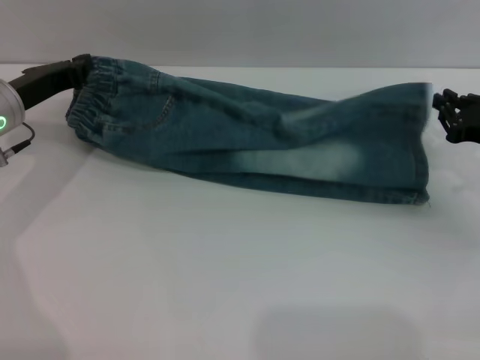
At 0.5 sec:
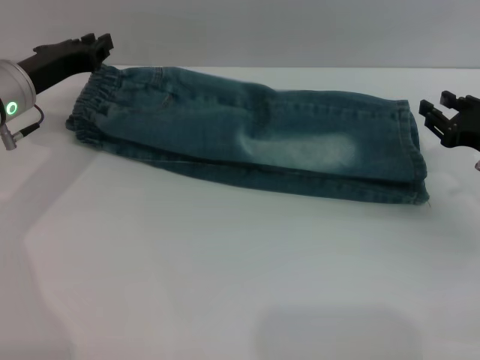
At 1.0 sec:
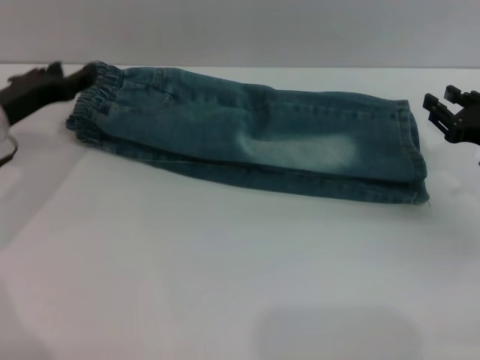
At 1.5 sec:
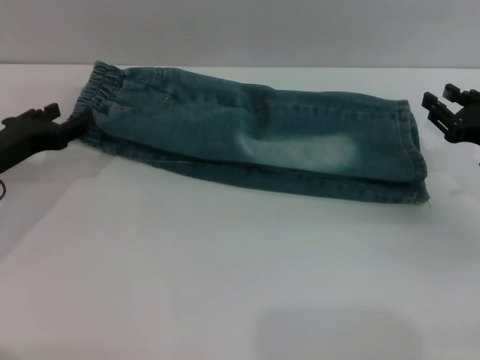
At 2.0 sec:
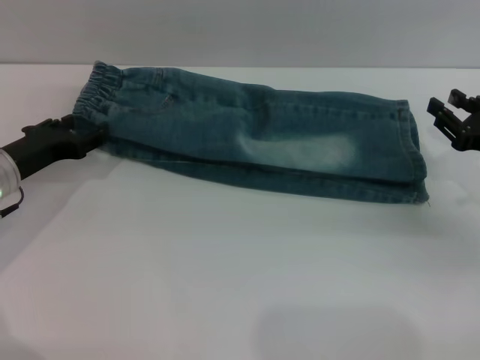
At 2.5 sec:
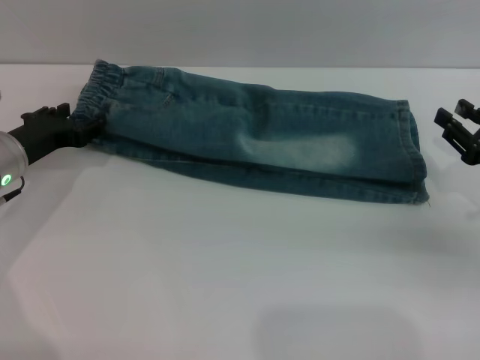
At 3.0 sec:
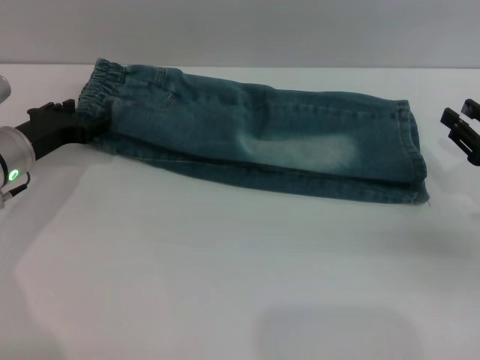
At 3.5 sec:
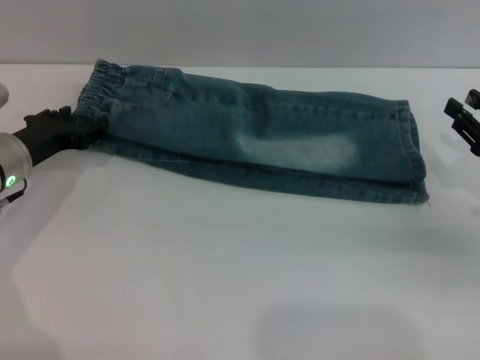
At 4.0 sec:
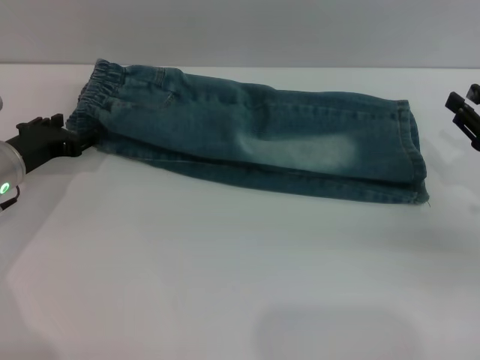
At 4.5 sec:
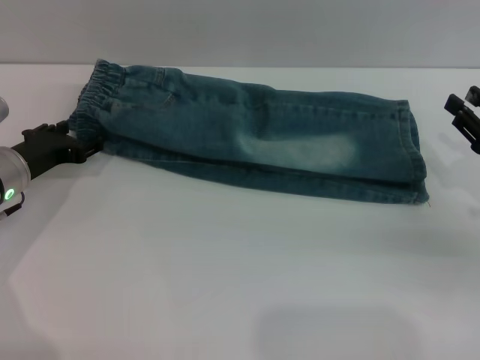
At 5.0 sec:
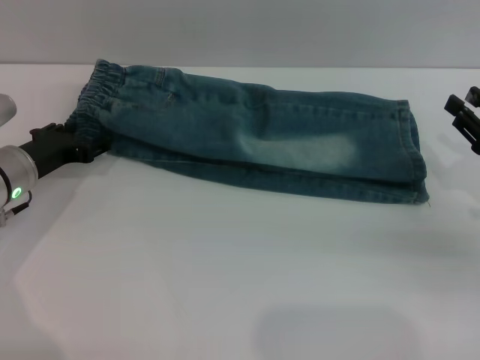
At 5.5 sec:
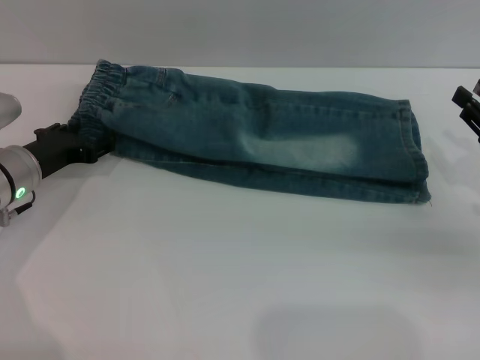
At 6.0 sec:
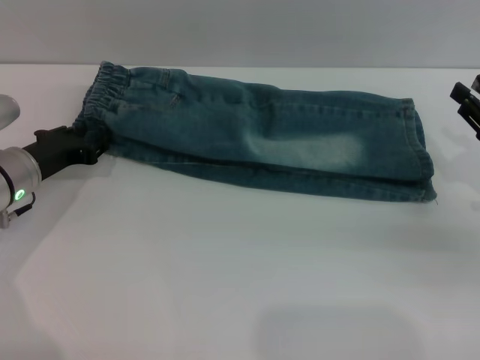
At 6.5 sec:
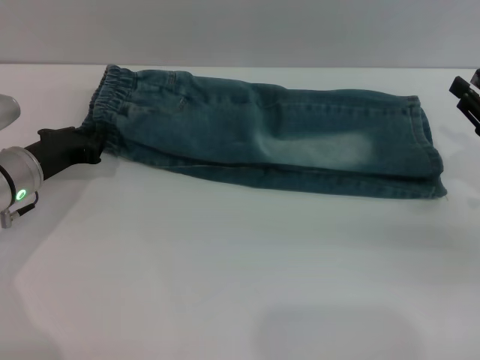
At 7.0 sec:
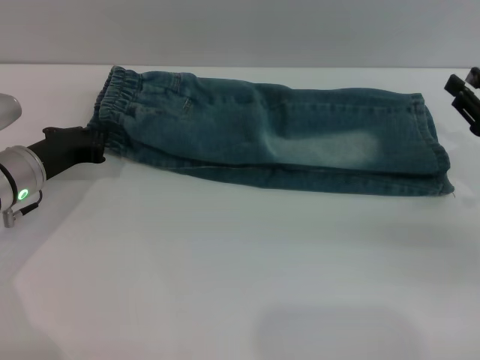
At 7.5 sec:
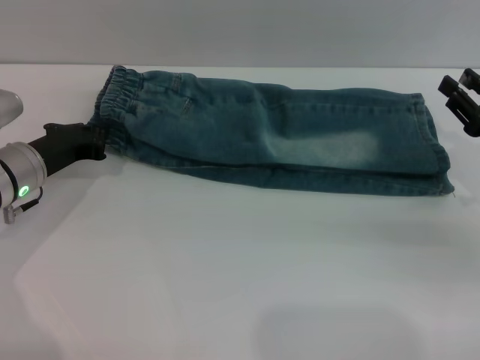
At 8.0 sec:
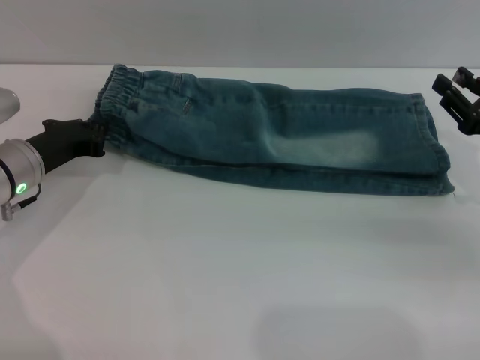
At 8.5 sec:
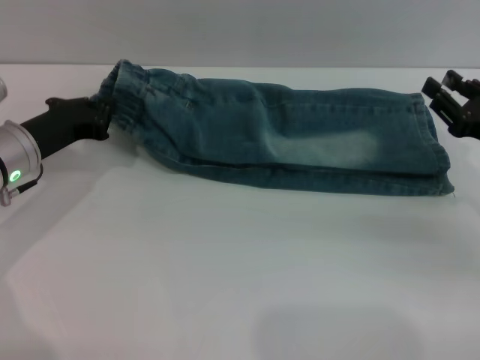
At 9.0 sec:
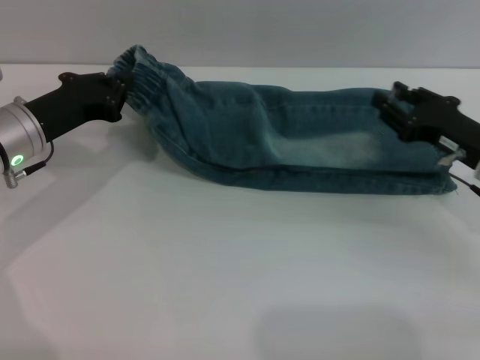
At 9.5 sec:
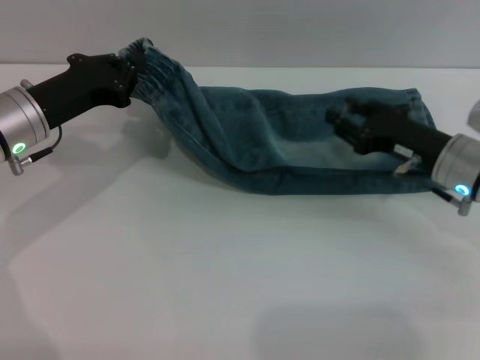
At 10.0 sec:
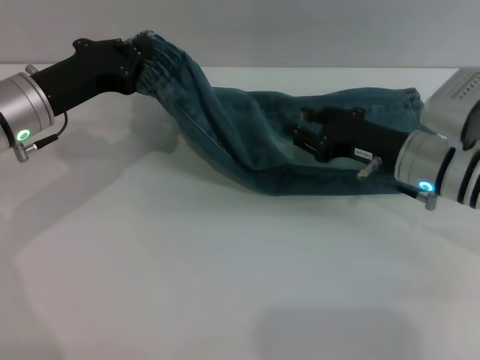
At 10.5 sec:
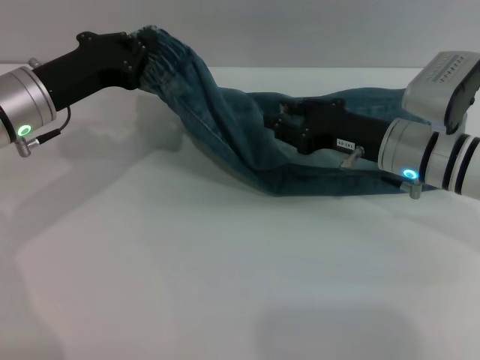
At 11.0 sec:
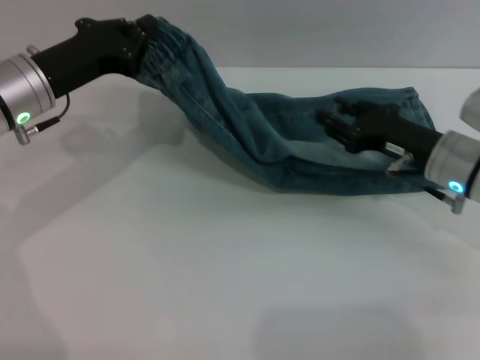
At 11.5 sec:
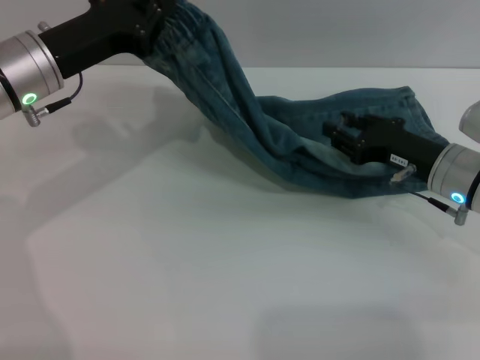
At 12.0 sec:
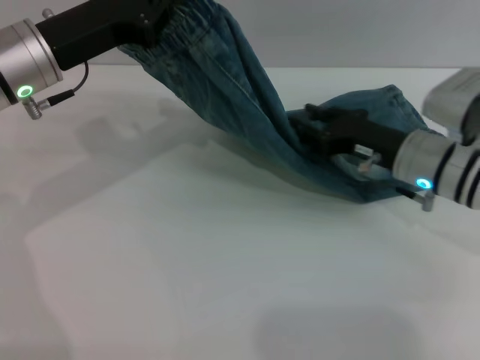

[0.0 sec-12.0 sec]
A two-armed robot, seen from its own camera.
0.0 sec to 2.0 sec: The right gripper opens, while the left gripper moves some 5 cm, and opens up.
2.0 sec to 6.0 sec: The grippers stay close to where they were, moving slightly.
6.0 sec to 8.0 sec: The left gripper closes up.
8.0 sec to 10.0 sec: The left gripper heads upward, covering about 5 cm, while the right gripper moves to the left, approximately 10 cm.
10.0 sec to 12.0 sec: The left gripper shifts approximately 5 cm upward.

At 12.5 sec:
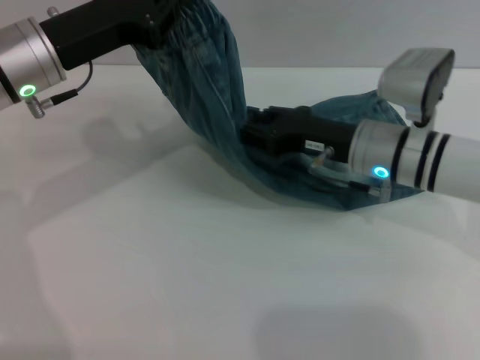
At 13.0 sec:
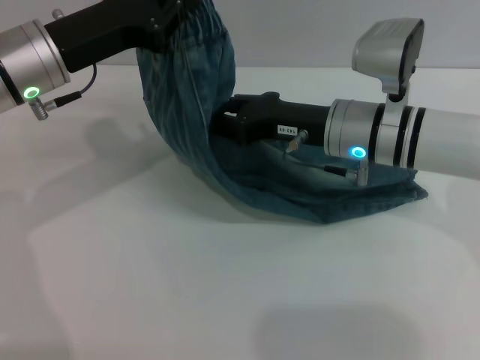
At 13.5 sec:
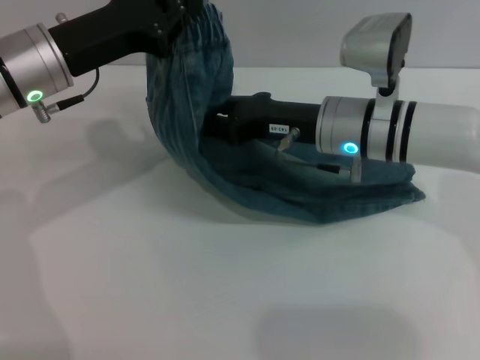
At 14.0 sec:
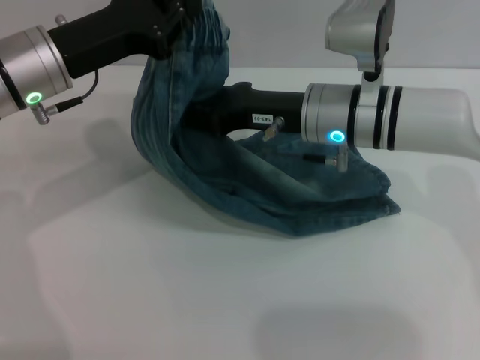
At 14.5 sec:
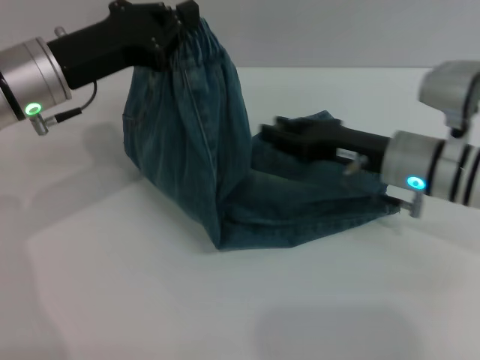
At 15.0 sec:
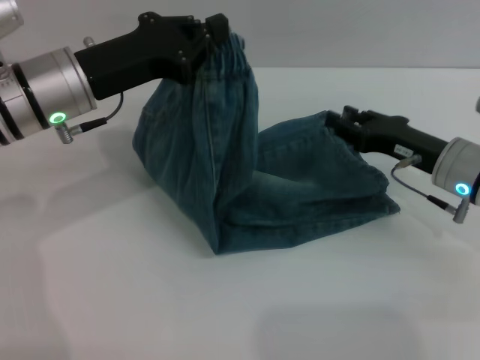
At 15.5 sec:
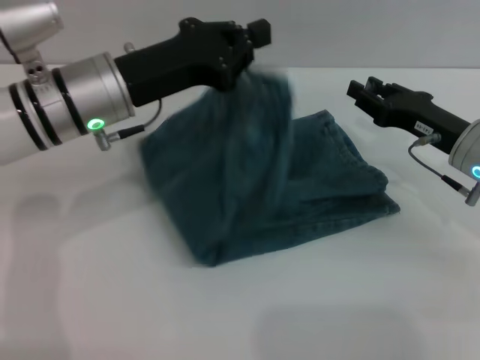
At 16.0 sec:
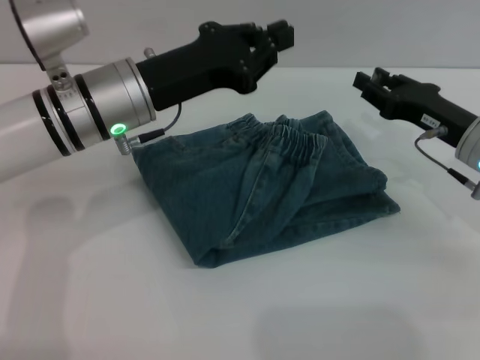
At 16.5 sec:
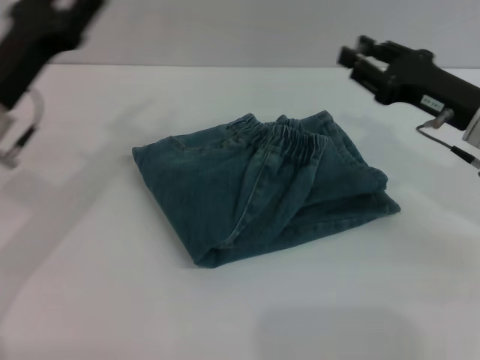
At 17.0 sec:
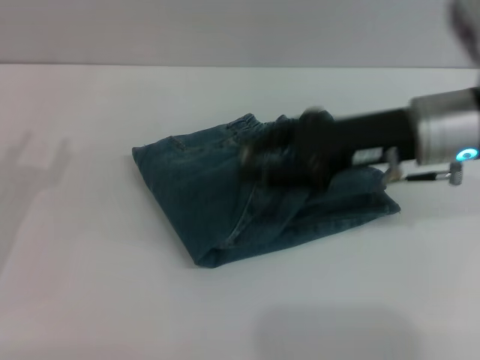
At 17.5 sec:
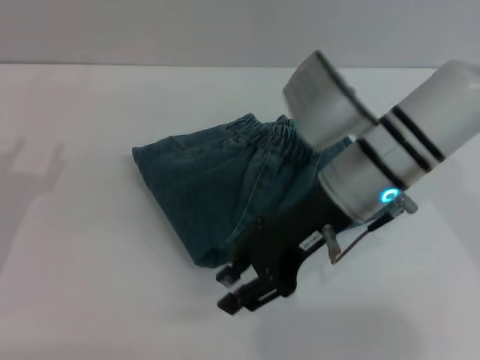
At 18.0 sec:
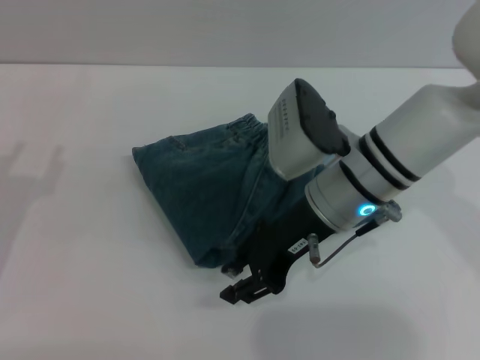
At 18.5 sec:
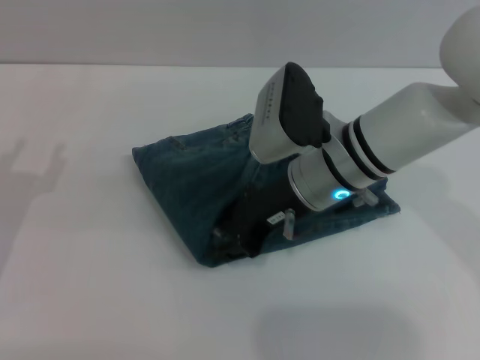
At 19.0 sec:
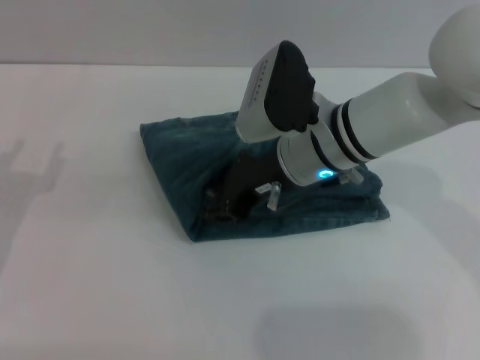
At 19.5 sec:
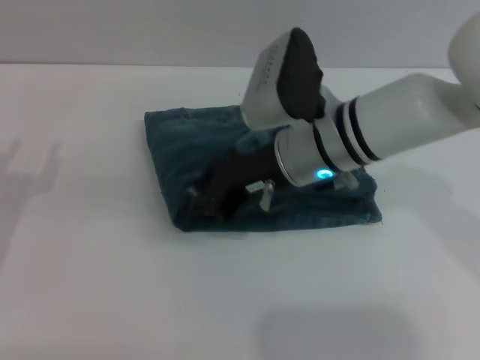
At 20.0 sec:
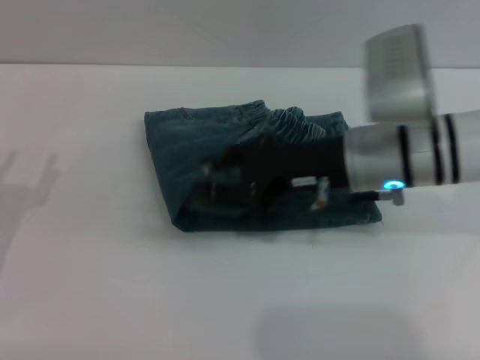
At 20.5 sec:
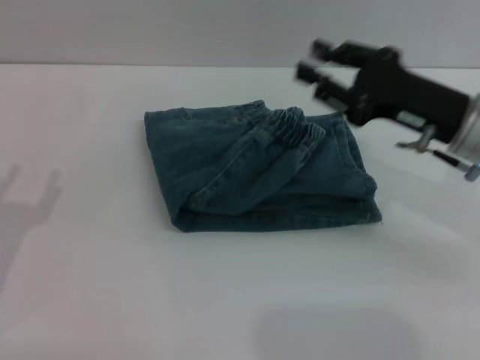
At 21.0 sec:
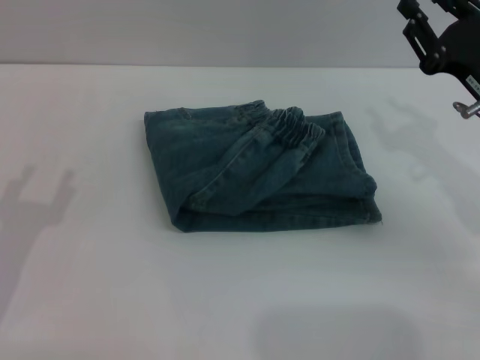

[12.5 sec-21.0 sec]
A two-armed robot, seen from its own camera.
Step, 12.5 sec to 15.5 sec: Fold the pants from left to right with the left gripper.
Step, 16.0 sec to 20.0 sec: Place the folded trousers onto the center area with the right grippers.
14.5 sec to 16.5 sec: The left gripper reaches roughly 5 cm to the right, then returns, and opens its fingers. Meanwhile the right gripper heads to the right, covering about 5 cm.
16.5 sec to 19.0 sec: The right gripper moves to the left, about 20 cm. The left gripper moves backward, to the left and downward, approximately 10 cm, and opens.
19.0 sec to 21.0 sec: The right gripper shifts about 20 cm to the right.
